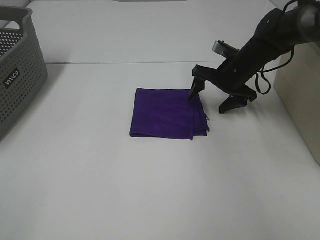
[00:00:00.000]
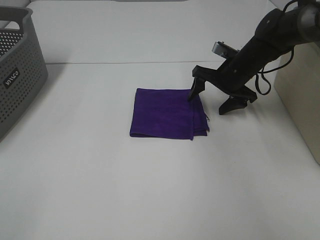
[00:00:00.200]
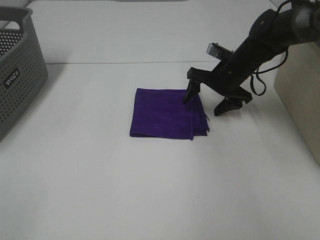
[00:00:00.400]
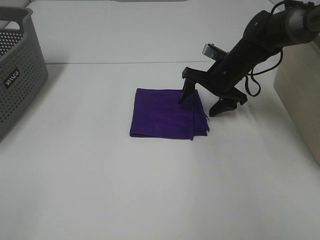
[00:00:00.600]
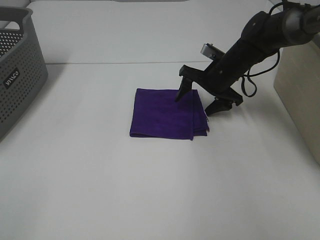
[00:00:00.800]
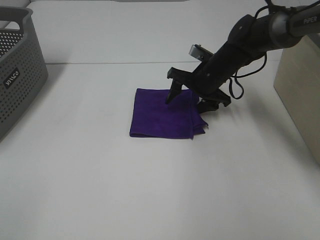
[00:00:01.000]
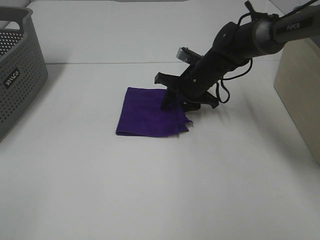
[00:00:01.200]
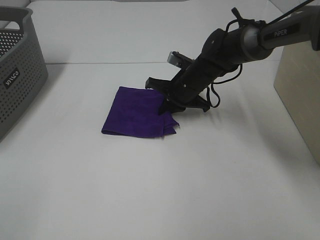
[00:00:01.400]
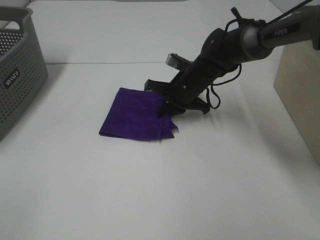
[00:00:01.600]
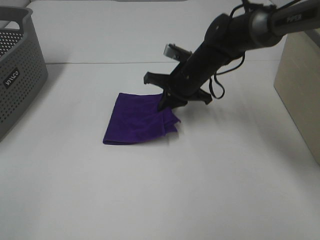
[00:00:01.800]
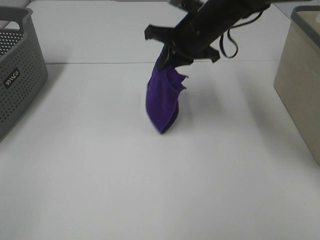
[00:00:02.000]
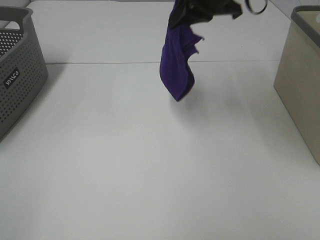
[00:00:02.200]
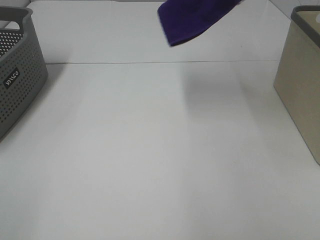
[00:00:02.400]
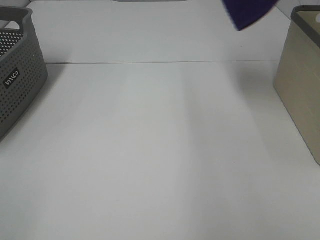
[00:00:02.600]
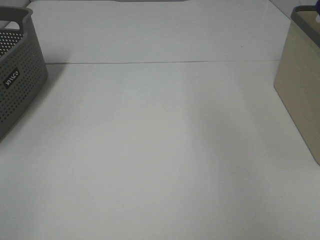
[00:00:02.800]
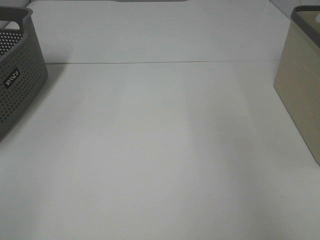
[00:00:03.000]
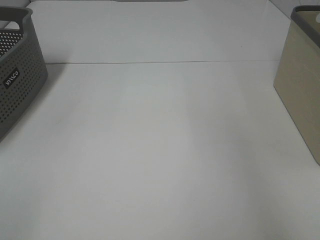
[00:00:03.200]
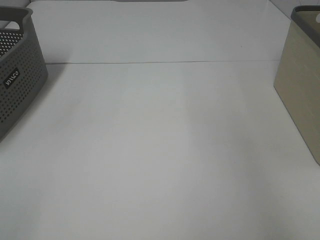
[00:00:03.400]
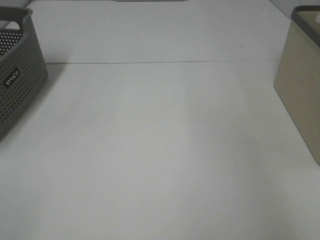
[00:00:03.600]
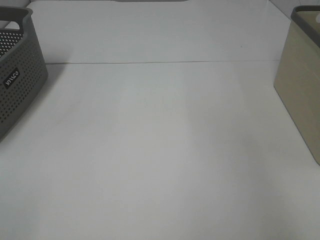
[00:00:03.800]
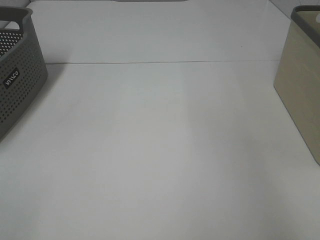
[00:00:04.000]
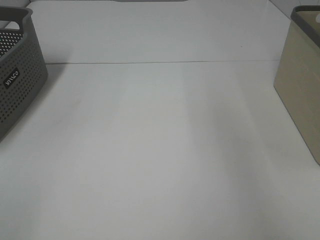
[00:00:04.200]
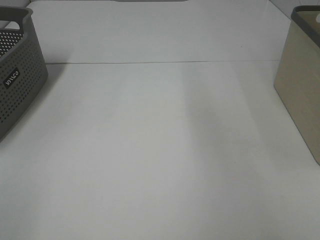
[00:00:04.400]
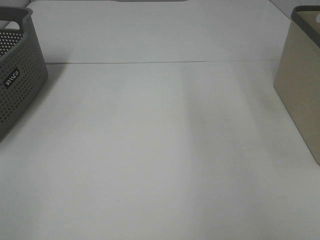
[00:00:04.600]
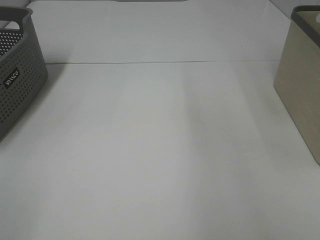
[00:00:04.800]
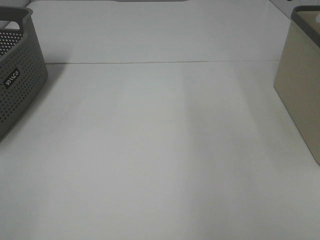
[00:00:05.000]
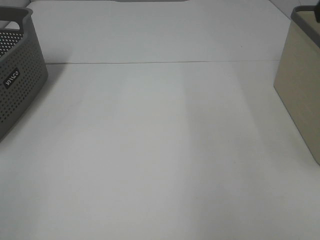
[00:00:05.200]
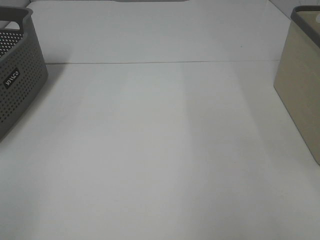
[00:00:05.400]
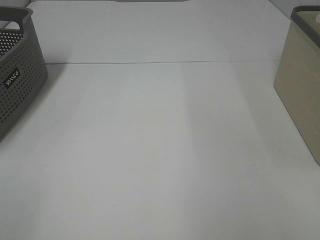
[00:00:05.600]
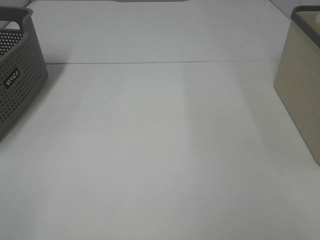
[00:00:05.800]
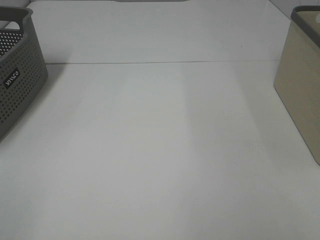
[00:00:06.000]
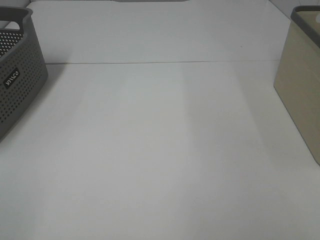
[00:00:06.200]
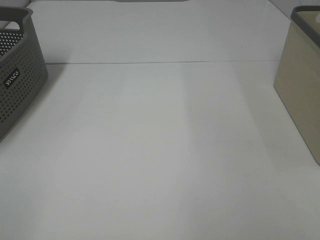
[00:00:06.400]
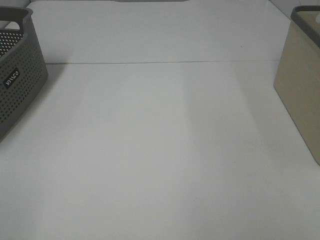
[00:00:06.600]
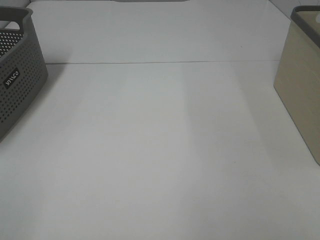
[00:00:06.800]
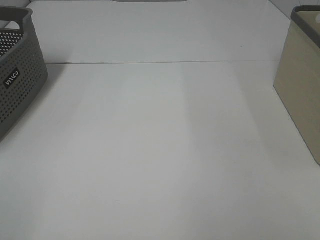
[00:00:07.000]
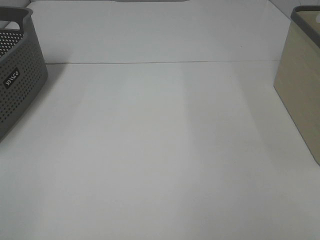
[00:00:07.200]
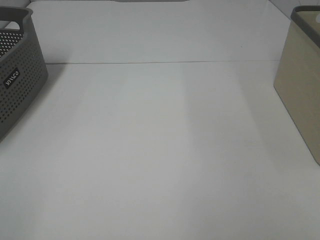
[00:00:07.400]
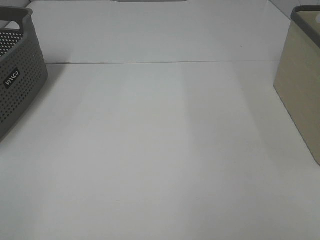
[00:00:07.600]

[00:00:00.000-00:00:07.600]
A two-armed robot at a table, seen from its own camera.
Step, 00:00:01.600 to 00:00:03.800: Right hand: place the purple towel in right basket.
00:00:00.000 to 00:00:01.600: The right gripper is displaced to the left by approximately 10 cm, and closes up.
00:00:01.600 to 00:00:03.000: The right gripper is displaced upward and to the right by approximately 50 cm.
